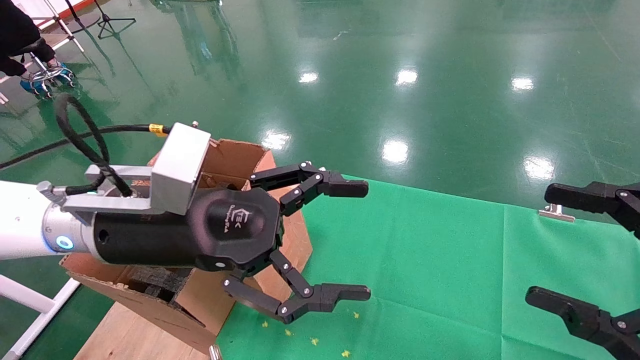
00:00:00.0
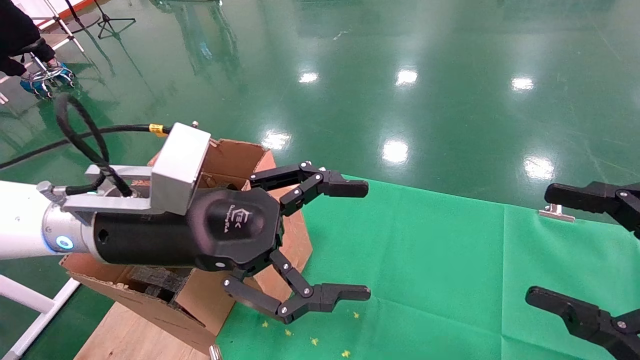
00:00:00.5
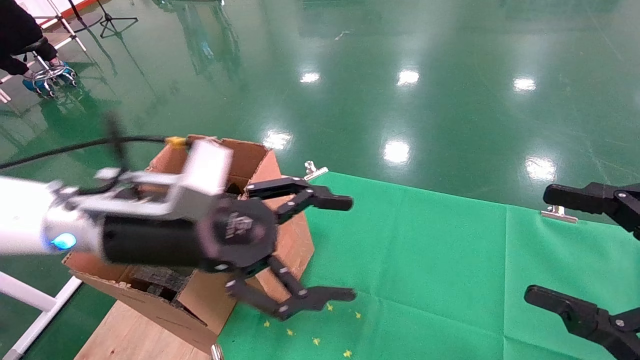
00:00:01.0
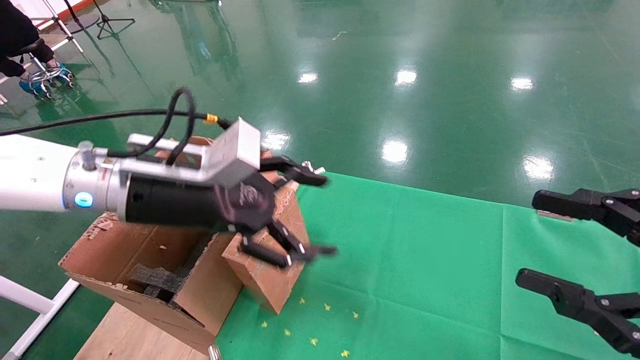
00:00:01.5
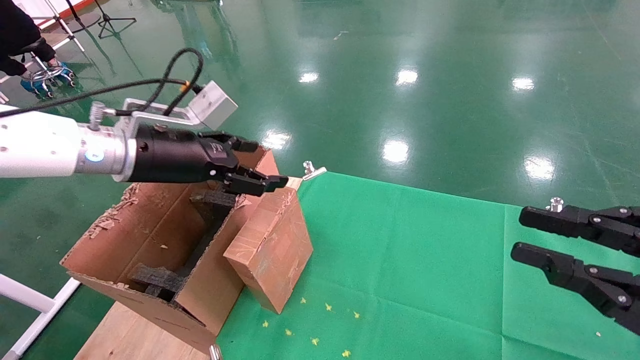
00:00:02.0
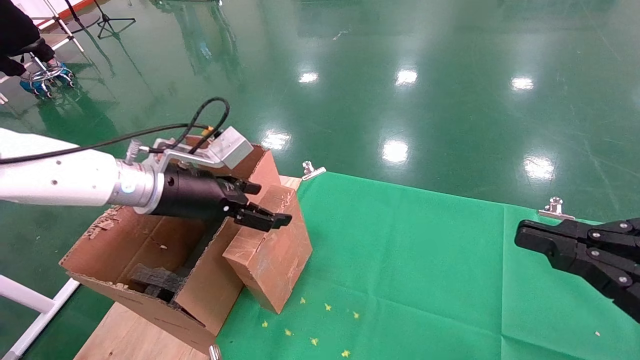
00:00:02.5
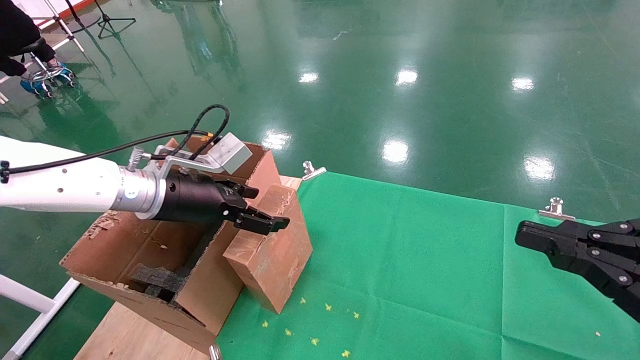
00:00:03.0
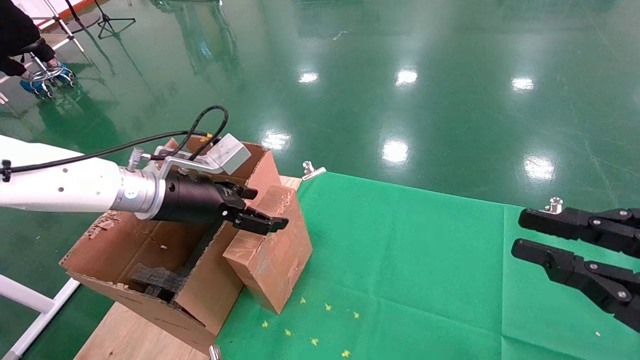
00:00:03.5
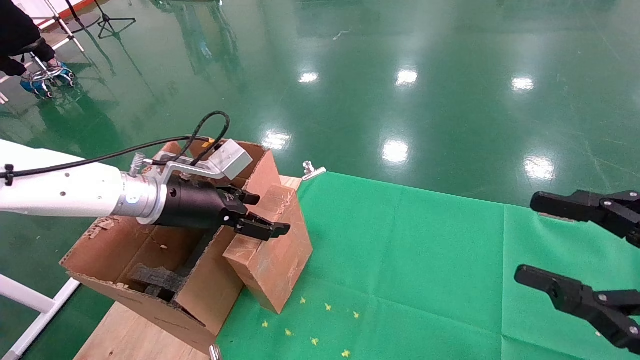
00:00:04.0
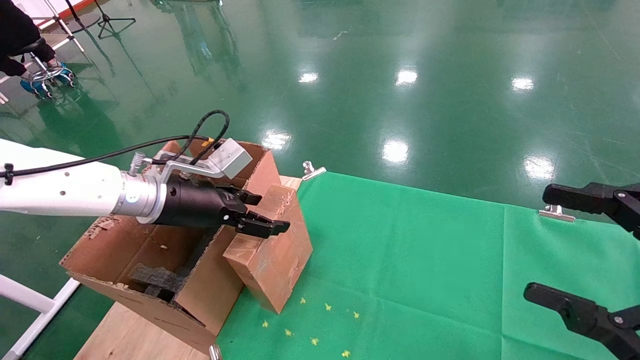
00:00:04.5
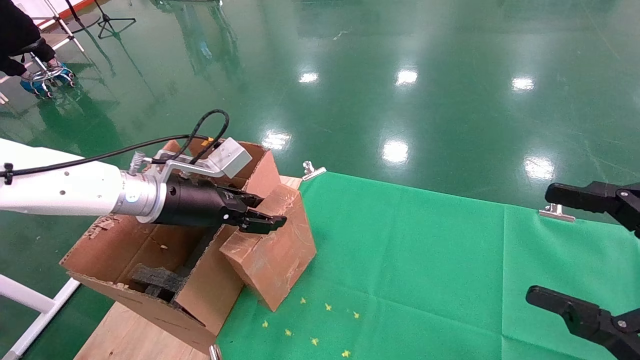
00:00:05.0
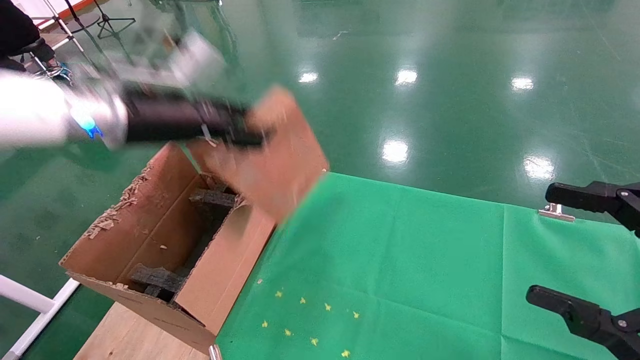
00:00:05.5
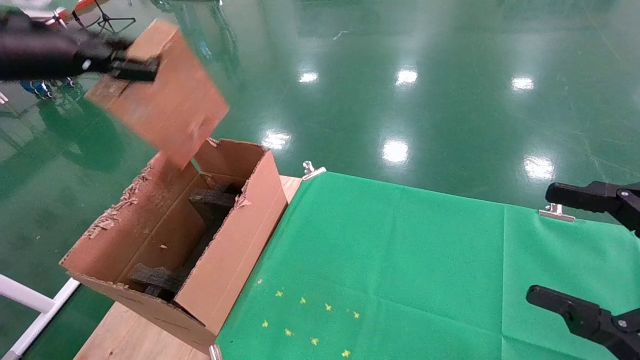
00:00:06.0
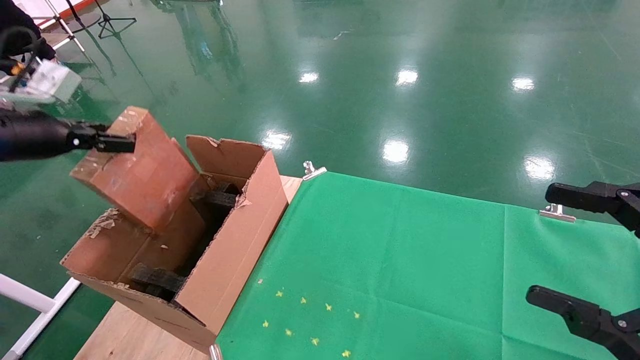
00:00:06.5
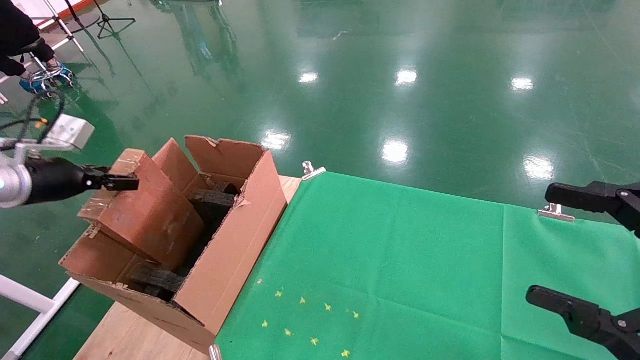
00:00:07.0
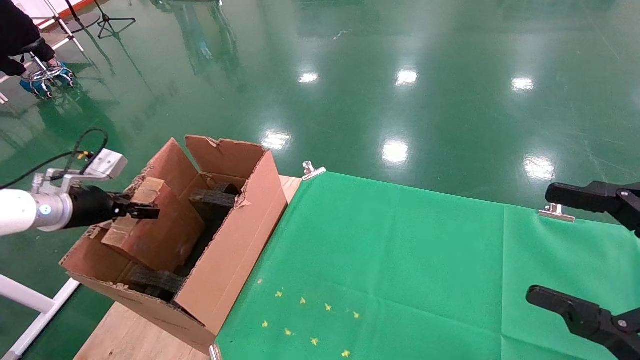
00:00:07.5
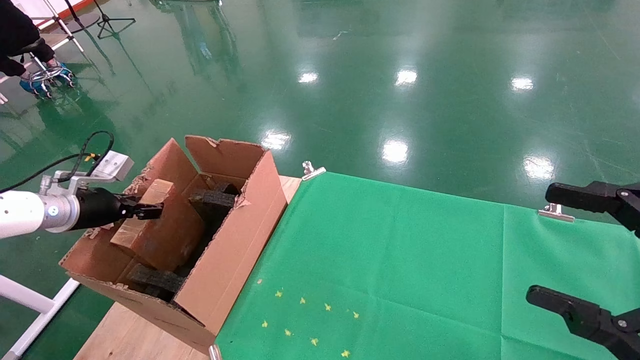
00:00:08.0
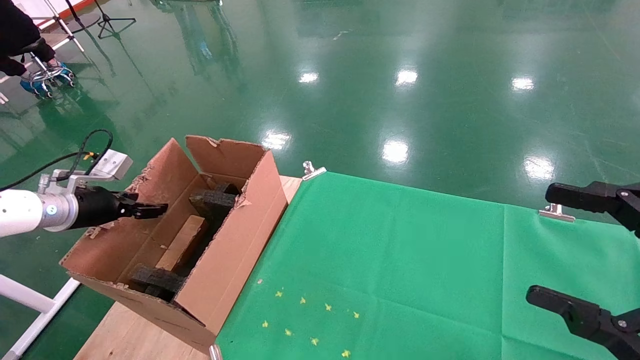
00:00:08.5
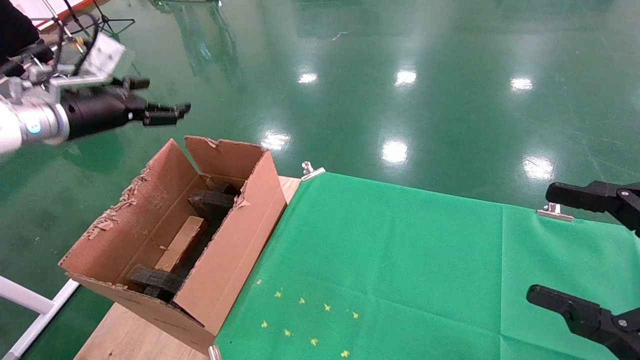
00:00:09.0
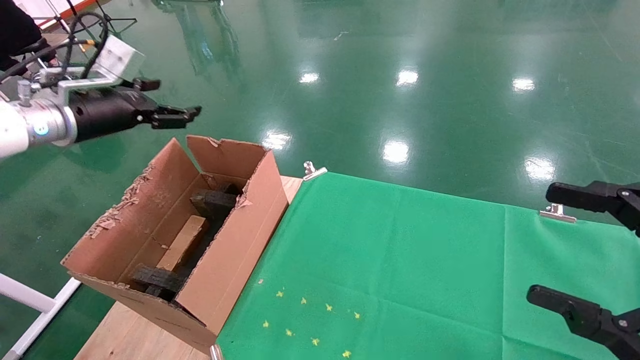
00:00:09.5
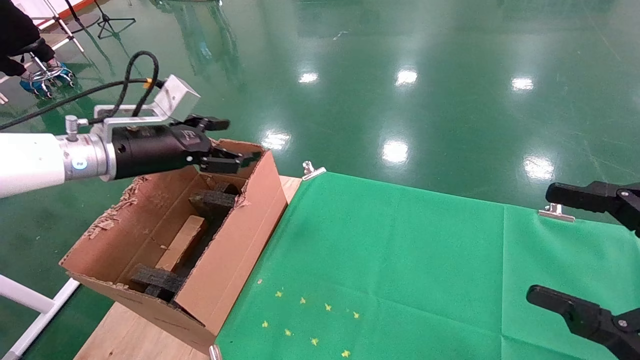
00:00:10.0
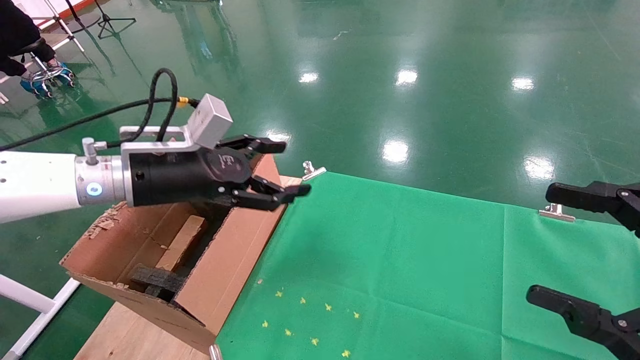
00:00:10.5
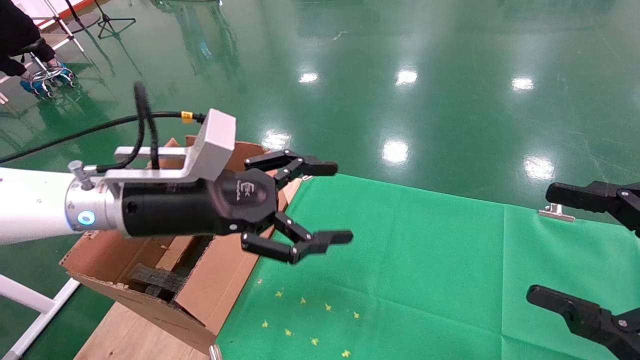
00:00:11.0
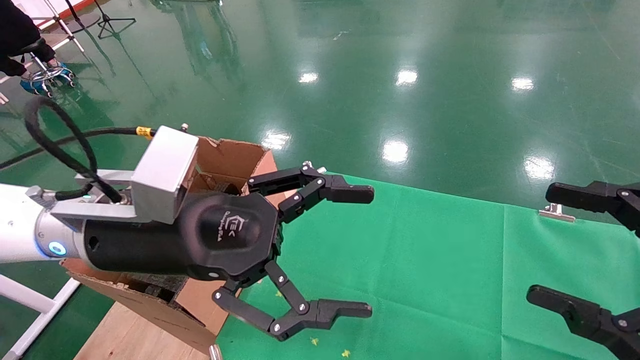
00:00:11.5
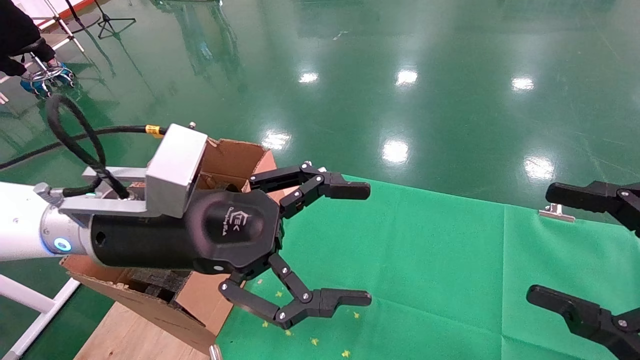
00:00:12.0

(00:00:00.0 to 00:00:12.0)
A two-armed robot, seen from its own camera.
Task of the whole recording: using a robotic arm to pick up a cardboard box and palace it the carton.
Step, 00:00:01.5 - 00:00:05.0: Pick up the mouse and the power cord paper box.
Step, 00:00:05.5 - 00:00:08.5: Place the mouse and the power cord paper box into the container.
00:00:00.0 - 00:00:02.0: The left gripper goes roughly 10 cm forward and to the left; the right gripper closes.
00:00:02.0 - 00:00:04.0: The left gripper goes about 5 cm downward.
00:00:04.0 - 00:00:06.0: The left gripper moves upward and to the left, about 20 cm, and closes its fingers; the right gripper opens up.
00:00:06.0 - 00:00:08.0: The left gripper moves downward, approximately 20 cm.
00:00:08.0 - 00:00:10.0: The left gripper travels to the right and upward by roughly 20 cm, and opens its fingers.
00:00:10.0 - 00:00:12.0: The left gripper shifts about 20 cm to the right and backward.

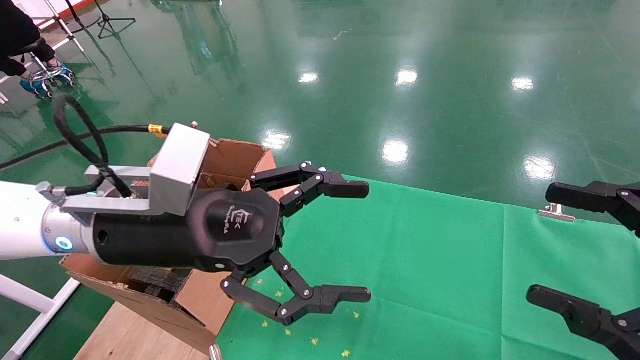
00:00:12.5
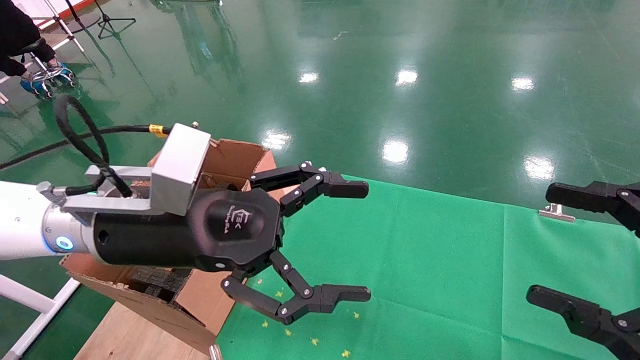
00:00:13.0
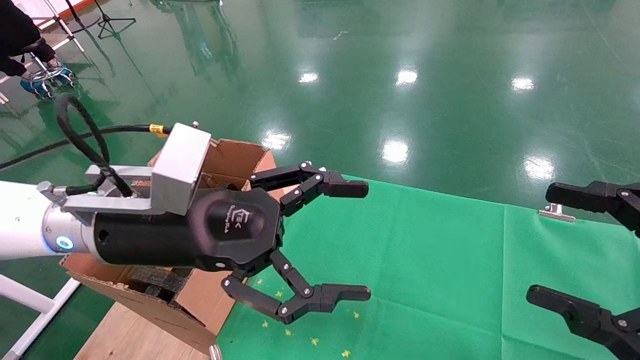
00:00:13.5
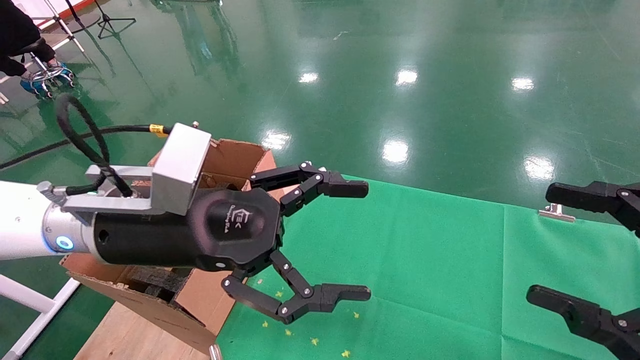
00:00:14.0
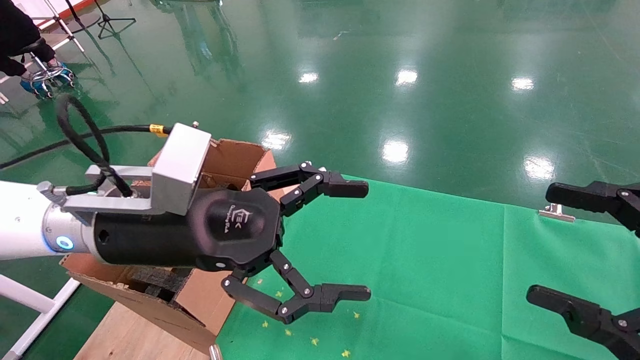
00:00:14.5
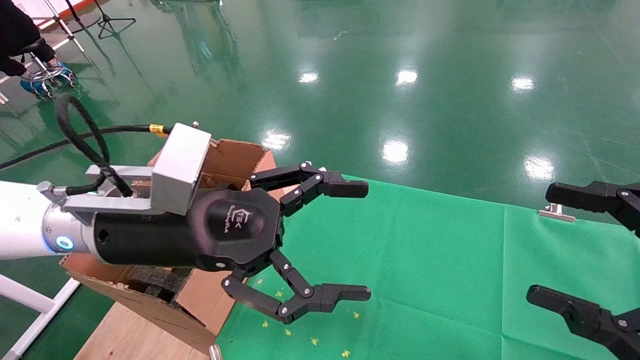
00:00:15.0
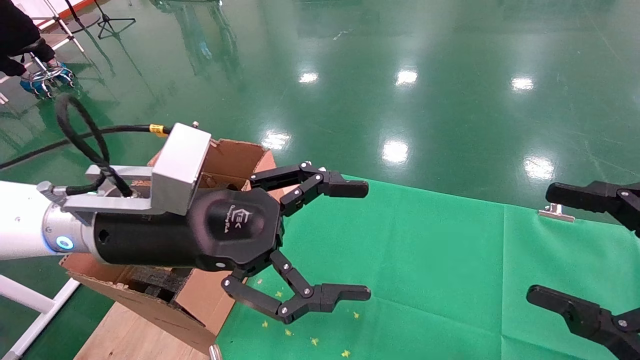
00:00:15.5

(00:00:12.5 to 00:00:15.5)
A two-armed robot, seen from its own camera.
Task of the whole recording: using a robotic arm to pick up a cardboard box and palace it the carton.
00:00:12.5 - 00:00:15.5: Both grippers stay put.
